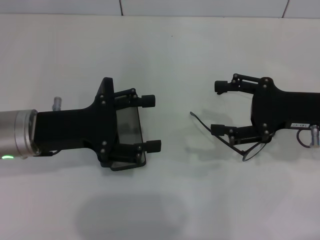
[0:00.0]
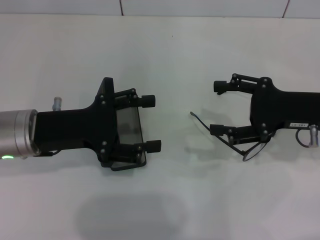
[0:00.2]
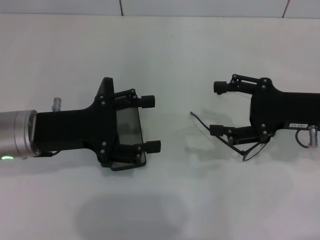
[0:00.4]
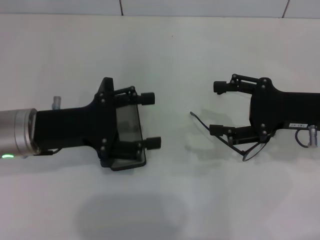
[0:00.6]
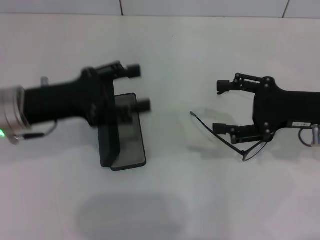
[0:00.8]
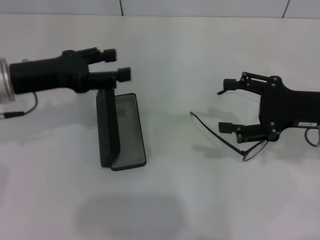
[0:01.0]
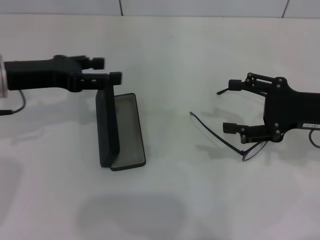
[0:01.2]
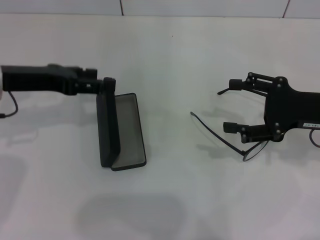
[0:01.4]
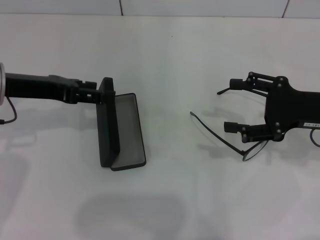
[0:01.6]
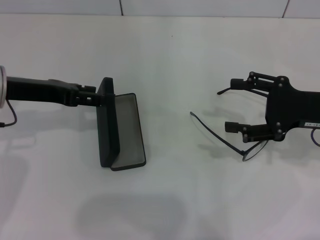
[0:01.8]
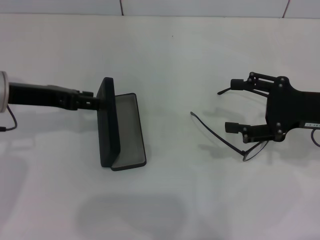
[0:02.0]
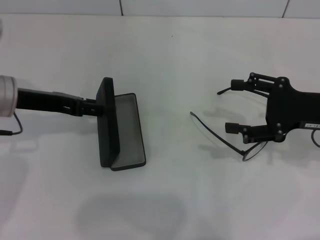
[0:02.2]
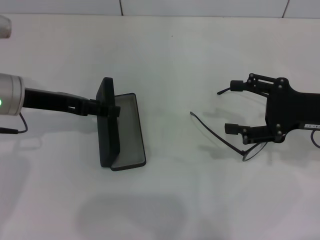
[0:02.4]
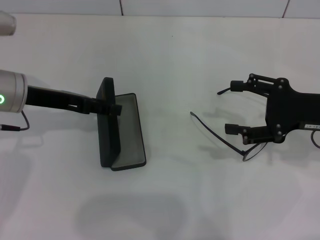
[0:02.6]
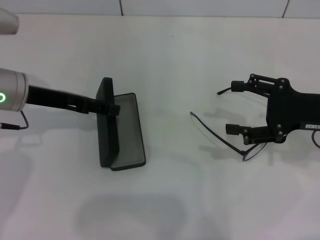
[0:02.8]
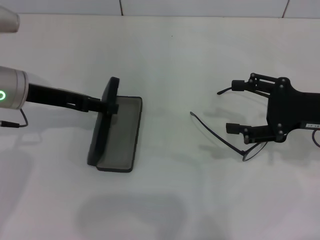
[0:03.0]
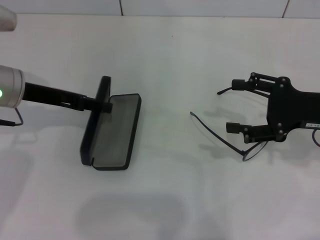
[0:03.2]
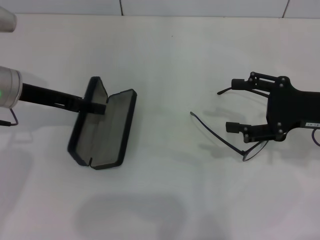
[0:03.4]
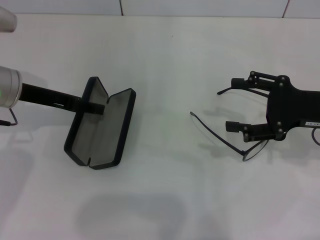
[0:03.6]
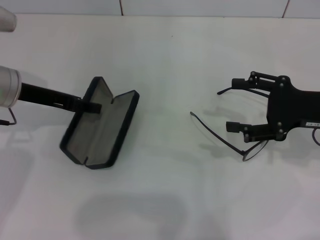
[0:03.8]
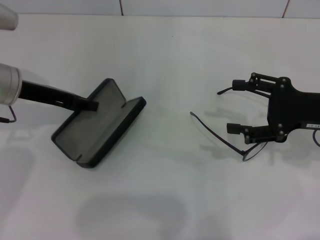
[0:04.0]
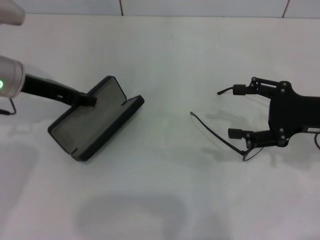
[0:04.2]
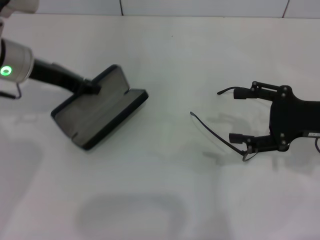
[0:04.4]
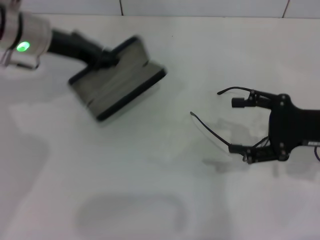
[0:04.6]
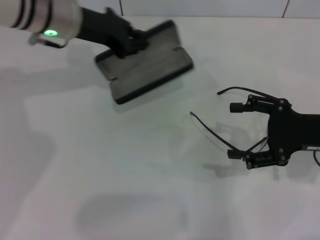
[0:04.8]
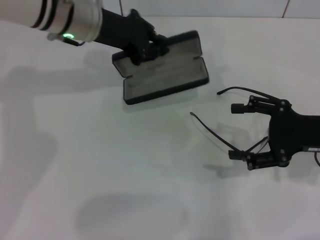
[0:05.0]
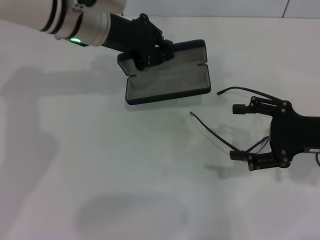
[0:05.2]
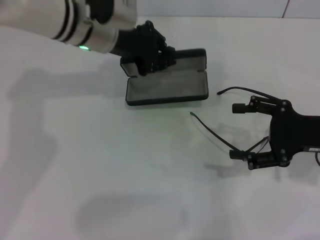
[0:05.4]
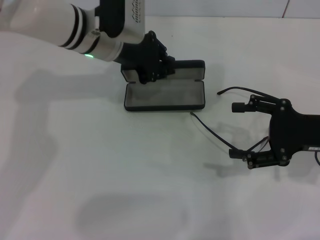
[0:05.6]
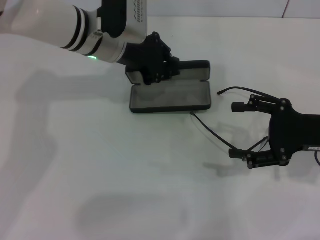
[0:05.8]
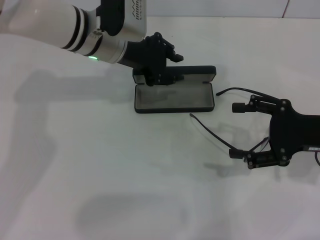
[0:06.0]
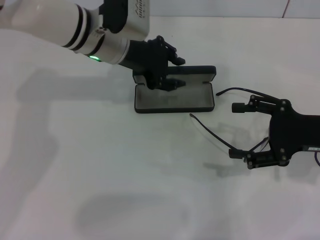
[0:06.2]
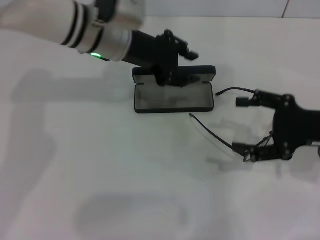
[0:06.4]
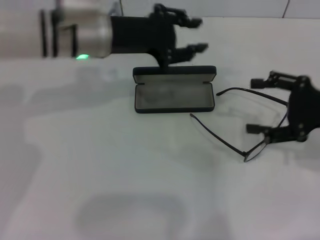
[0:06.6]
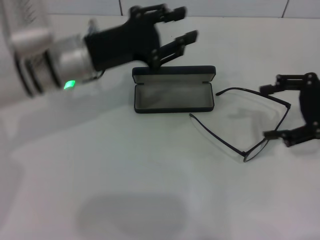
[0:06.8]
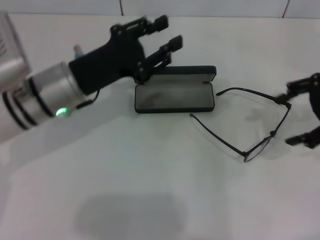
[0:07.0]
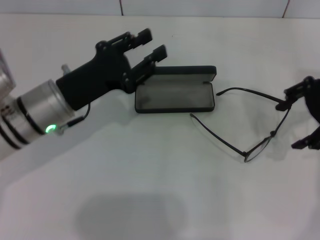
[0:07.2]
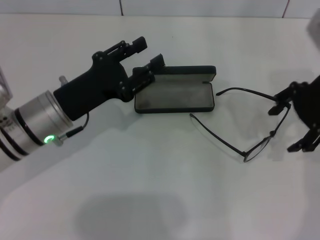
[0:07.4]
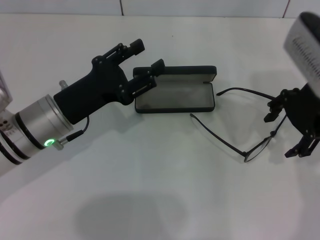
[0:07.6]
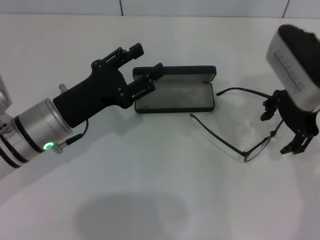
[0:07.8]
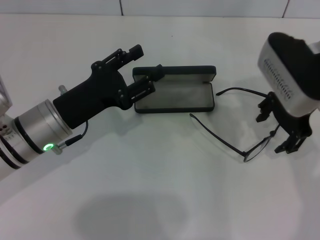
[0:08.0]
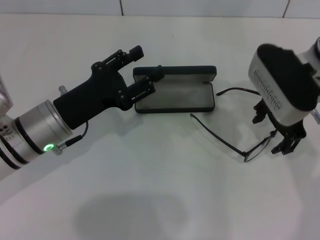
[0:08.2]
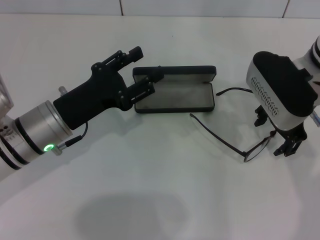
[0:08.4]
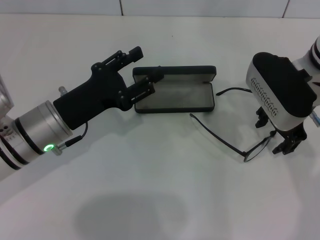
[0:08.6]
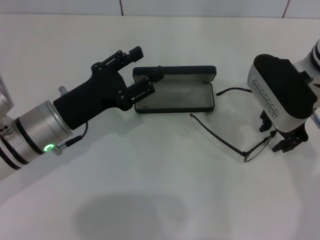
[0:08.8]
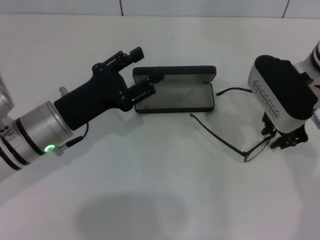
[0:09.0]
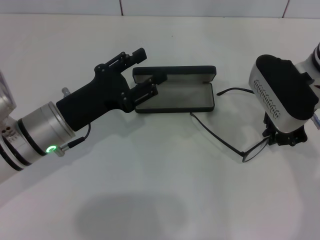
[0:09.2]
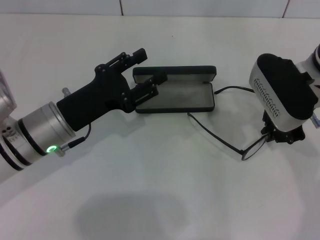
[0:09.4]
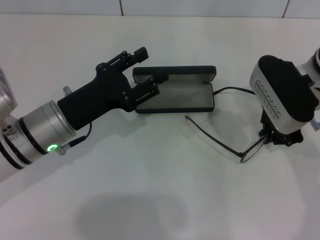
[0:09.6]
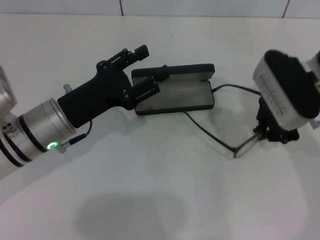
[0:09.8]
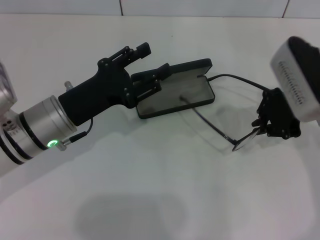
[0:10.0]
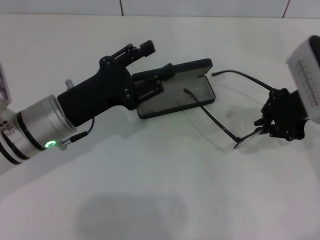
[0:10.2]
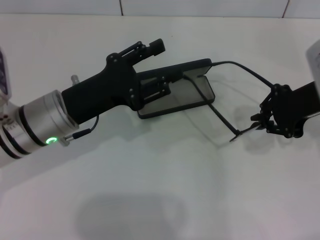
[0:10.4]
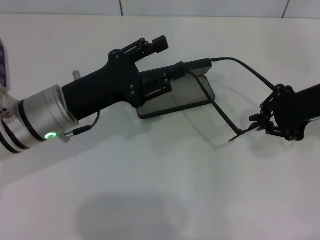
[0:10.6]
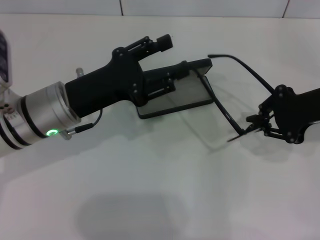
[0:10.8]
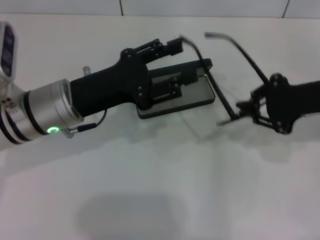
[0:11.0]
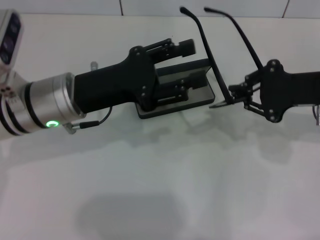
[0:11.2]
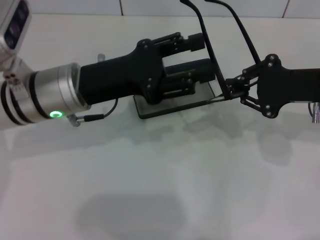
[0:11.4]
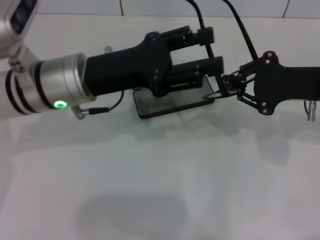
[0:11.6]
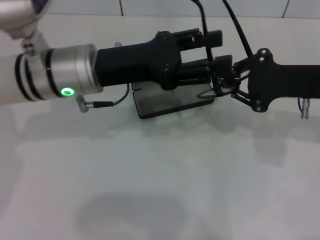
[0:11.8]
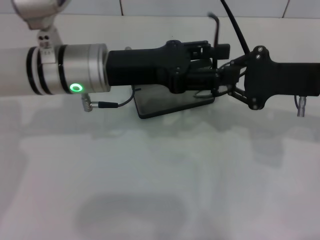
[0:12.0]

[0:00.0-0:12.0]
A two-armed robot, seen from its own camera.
Step, 0:00.0 to 0:04.2: Grab the glasses case with your left hand.
Step, 0:04.6 to 0:06.2: Place the glasses case in the center of the table with your left hand.
Step, 0:06.4 to 0:09.2: Grab the eyeglass frame with your right hand.
0:00.0 to 0:01.6: The left gripper goes some 5 cm forward.
0:01.6 to 0:03.0: The grippers make only small movements.
0:03.0 to 0:04.4: The left gripper closes up.
0:04.4 to 0:06.0: The left gripper goes roughly 15 cm to the right.
0:06.0 to 0:07.6: The left gripper goes some 15 cm backward, to the left and downward, and opens up, while the right gripper travels upward, forward and to the left by roughly 15 cm.
0:07.6 to 0:09.0: The right gripper ends up some 5 cm from where it was, and closes.
0:09.0 to 0:10.4: The right gripper goes approximately 5 cm to the right, and closes.
0:10.4 to 0:12.0: The left gripper goes about 10 cm upward, to the right and forward.

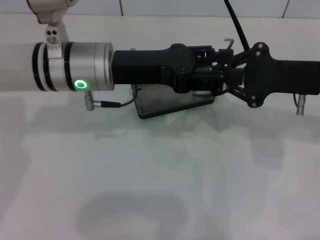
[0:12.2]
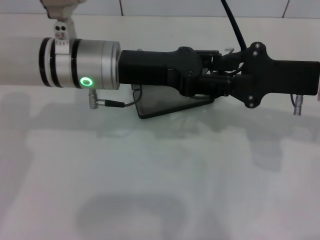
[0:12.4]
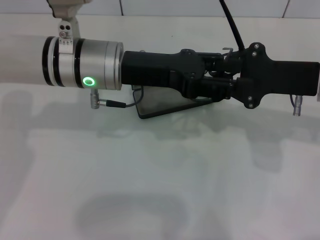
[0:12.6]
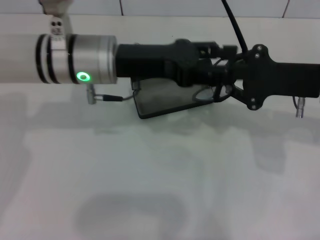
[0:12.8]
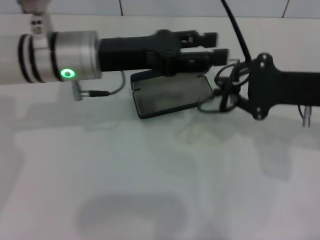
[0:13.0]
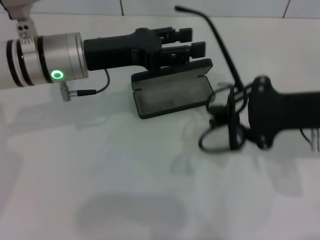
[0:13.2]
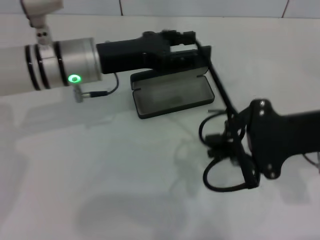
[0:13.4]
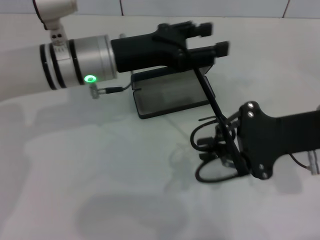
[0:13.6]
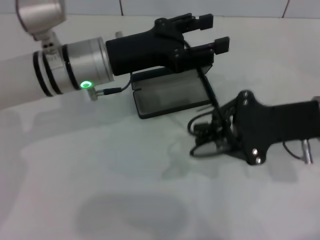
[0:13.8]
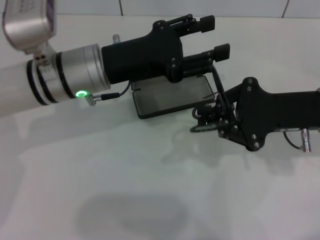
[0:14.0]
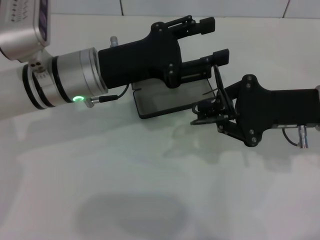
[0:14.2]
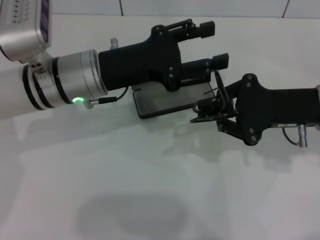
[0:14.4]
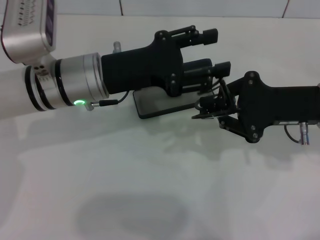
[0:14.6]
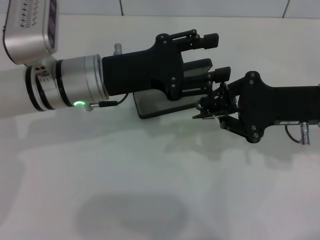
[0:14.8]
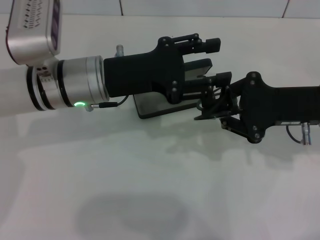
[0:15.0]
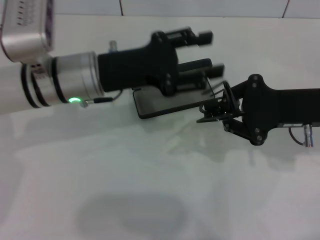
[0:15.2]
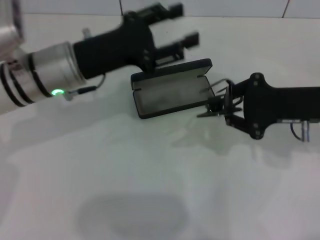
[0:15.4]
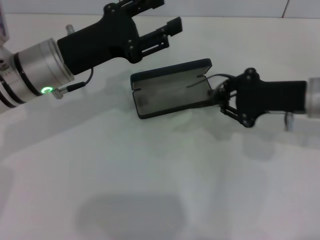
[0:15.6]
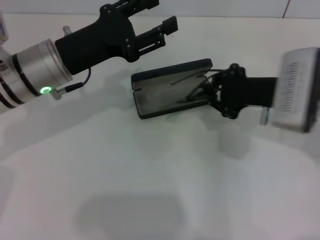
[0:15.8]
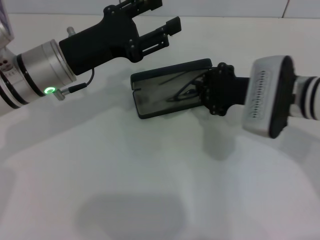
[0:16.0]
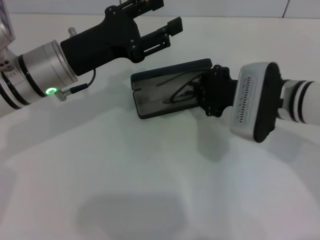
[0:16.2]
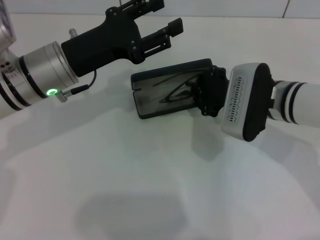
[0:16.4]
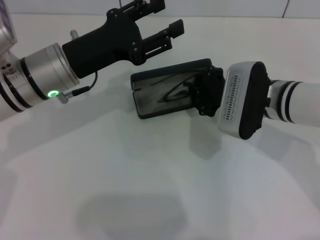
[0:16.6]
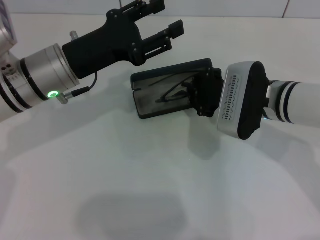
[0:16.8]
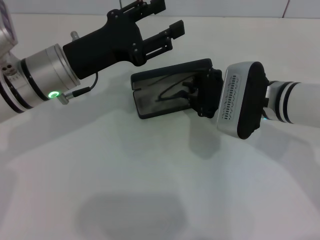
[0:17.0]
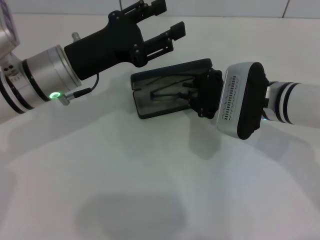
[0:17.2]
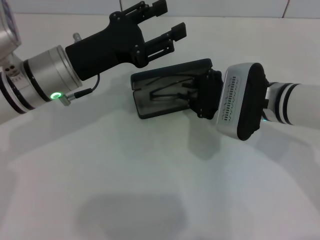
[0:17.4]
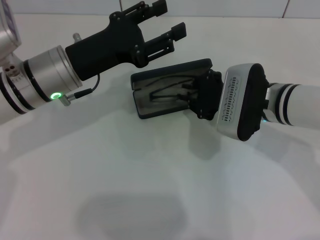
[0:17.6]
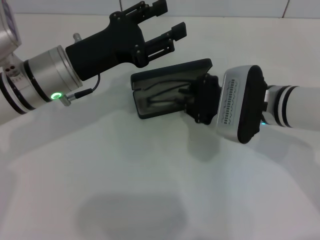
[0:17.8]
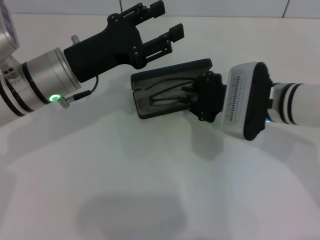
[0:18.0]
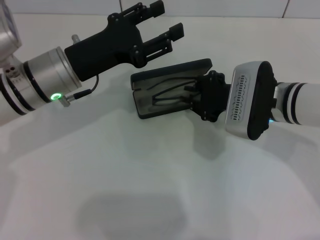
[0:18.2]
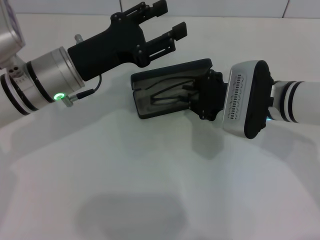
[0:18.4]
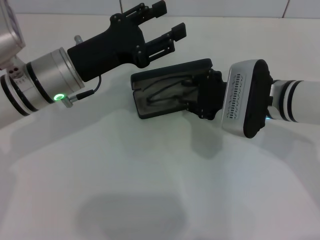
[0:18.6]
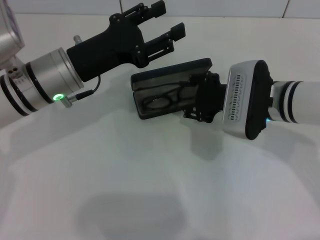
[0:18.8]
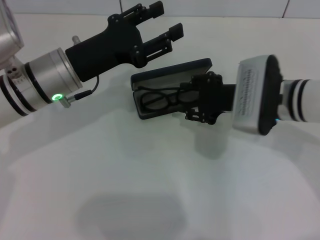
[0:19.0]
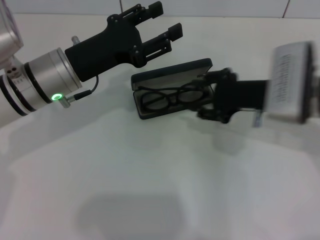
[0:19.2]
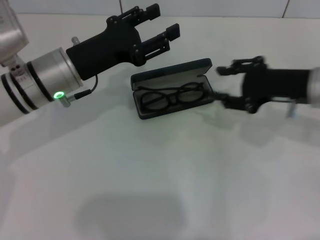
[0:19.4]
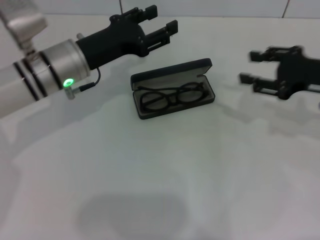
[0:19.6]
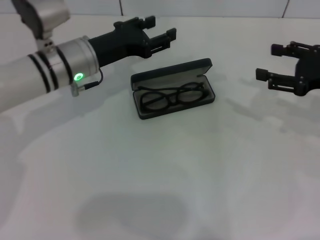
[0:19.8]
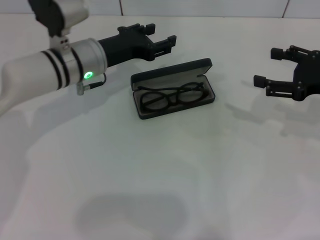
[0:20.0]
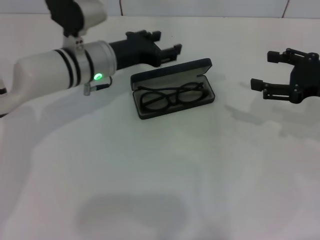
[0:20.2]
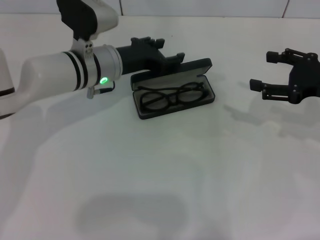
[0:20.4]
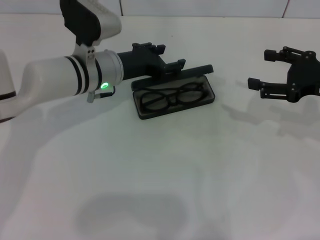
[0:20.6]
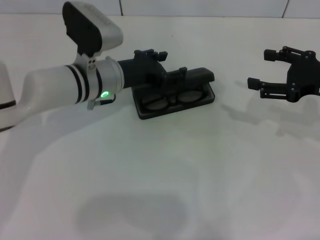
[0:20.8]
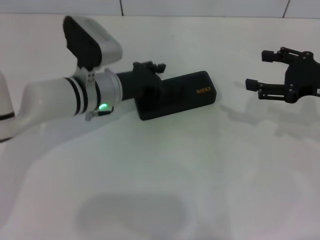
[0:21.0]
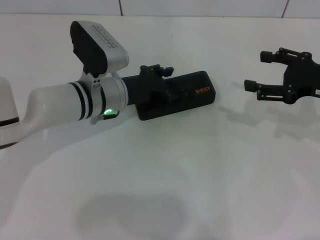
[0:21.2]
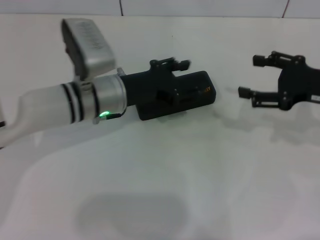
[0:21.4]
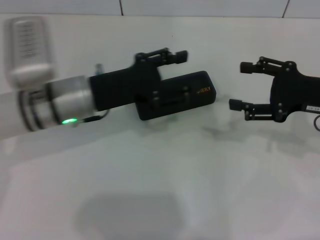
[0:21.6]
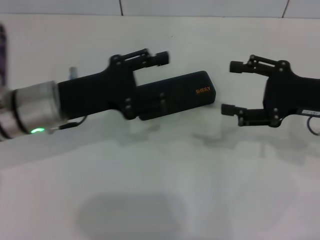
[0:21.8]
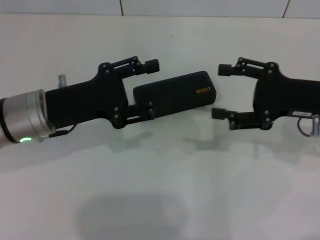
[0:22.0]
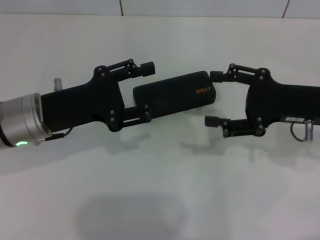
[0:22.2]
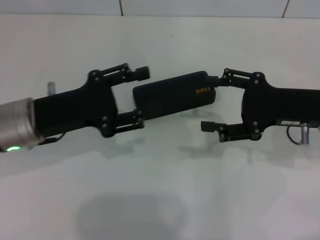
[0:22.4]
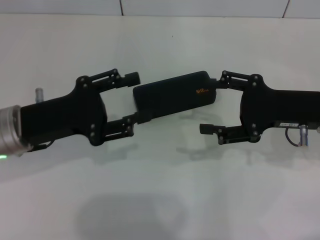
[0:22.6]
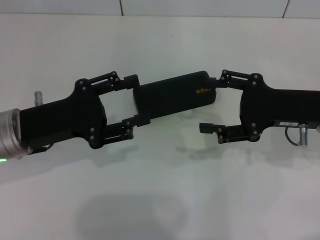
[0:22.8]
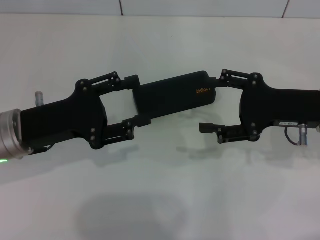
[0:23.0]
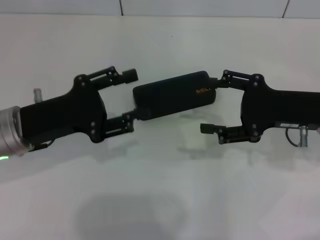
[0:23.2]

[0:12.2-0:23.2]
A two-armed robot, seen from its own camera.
Step, 0:12.2 to 0:15.0: Fold the frame with your left hand.
Step, 0:15.2 to 0:19.0: Put the glasses into the case with your right hand.
Step, 0:19.2 to 0:21.2: Close the glasses case with your left hand.
0:15.4 to 0:17.0: The right gripper heads to the left, covering roughly 10 cm.
0:17.0 to 0:18.4: Both grippers stay about where they are.
0:18.4 to 0:20.0: The right gripper travels to the right by about 15 cm, and opens up, while the left gripper travels forward by roughly 5 cm.
0:20.0 to 0:21.6: The left gripper heads backward, covering approximately 5 cm.
0:21.6 to 0:23.2: The left gripper travels to the left and backward by about 10 cm.
